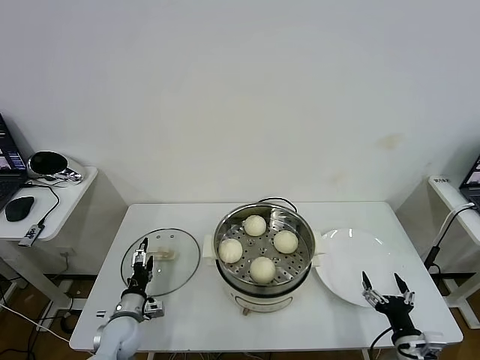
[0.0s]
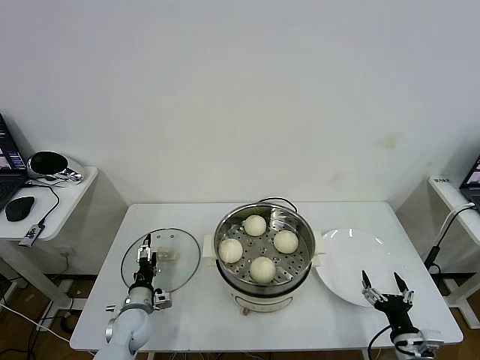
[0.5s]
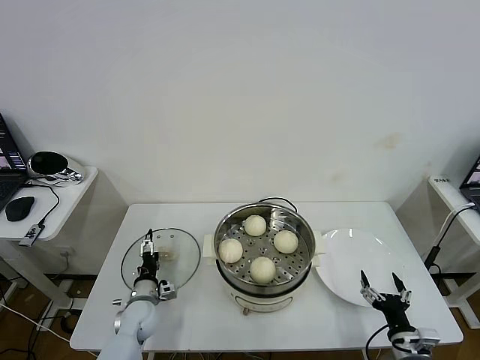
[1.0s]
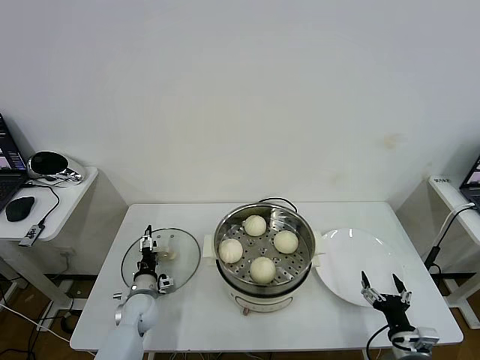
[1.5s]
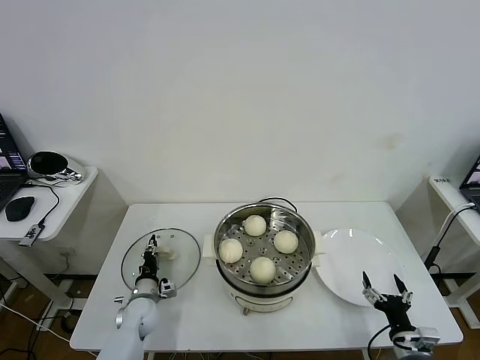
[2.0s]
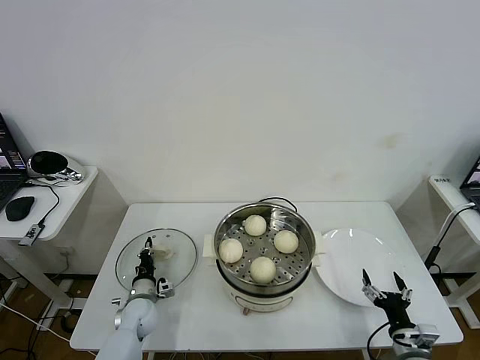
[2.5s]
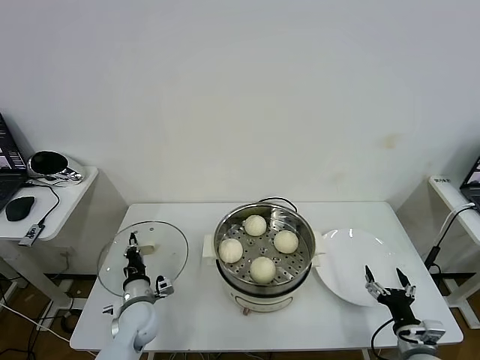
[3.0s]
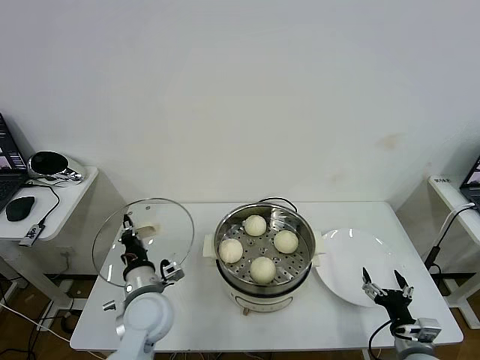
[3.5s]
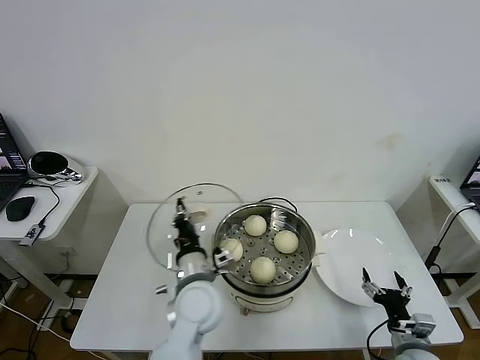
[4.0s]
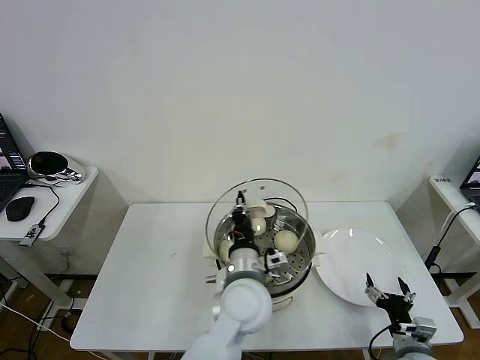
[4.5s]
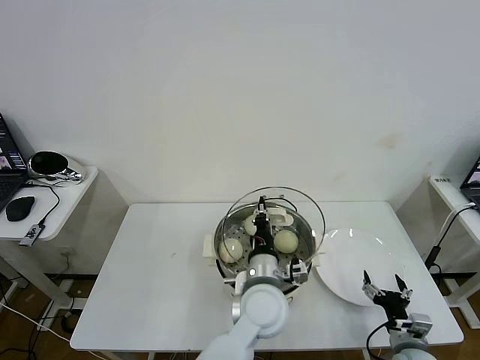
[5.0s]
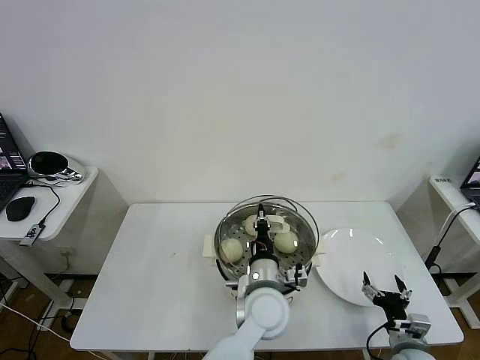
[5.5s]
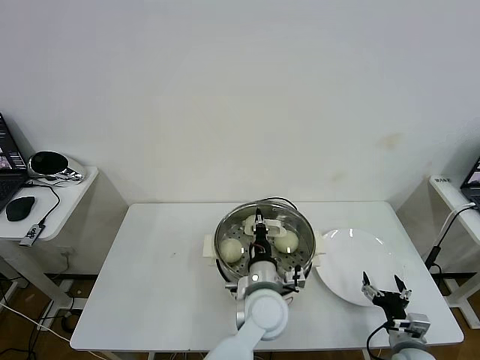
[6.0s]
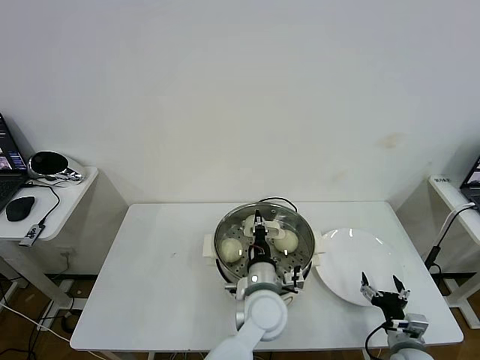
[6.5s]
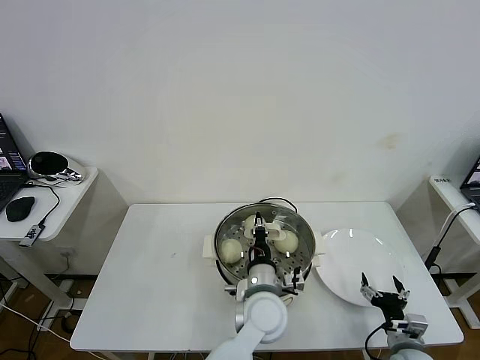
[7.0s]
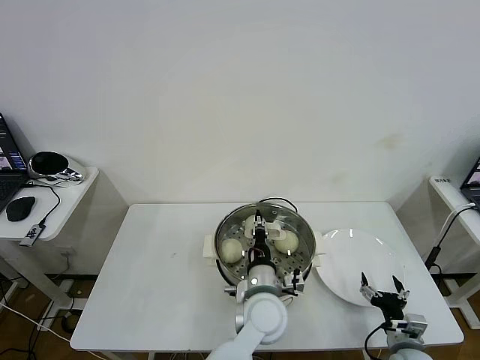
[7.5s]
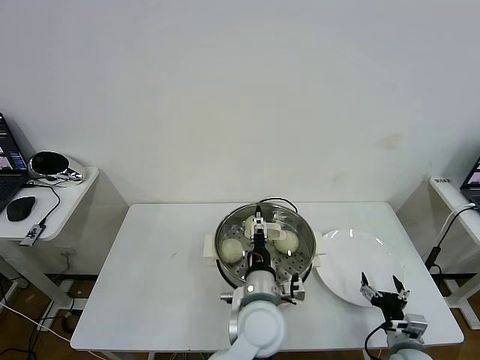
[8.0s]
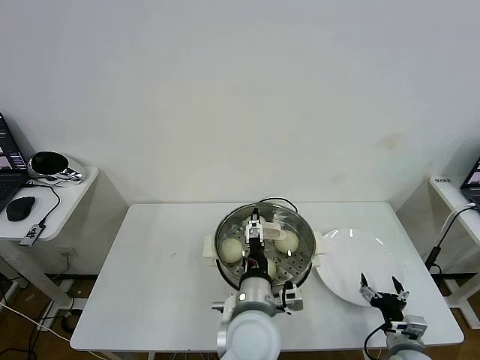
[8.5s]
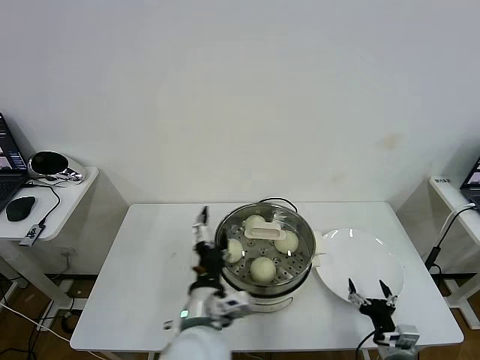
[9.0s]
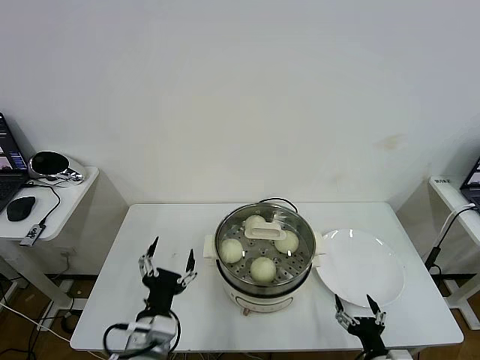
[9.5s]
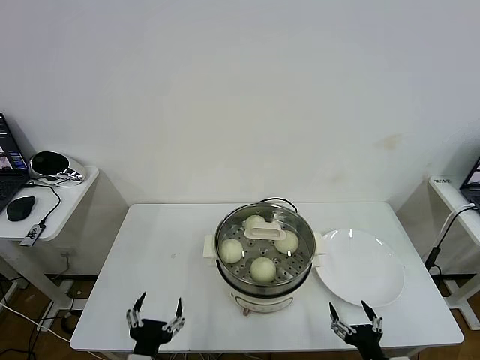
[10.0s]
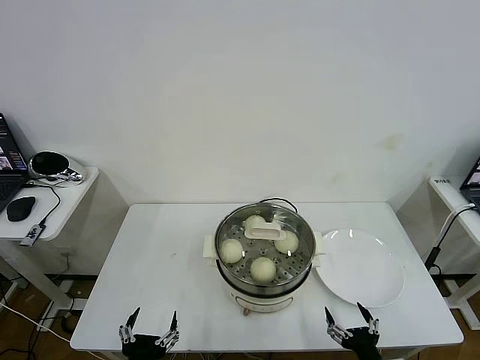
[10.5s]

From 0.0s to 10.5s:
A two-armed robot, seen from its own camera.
Task of the whole recording: take steamed baozi put them in steamer then cover it.
Step, from 0.0s to 2.0s: Grasp the pot lid with left gripper.
Step, from 2.5s to 7.5s: Place the pot lid on the steamer with left gripper.
From 0.0s to 2.0s: The left gripper travels forward by roughly 5 cm, and closes up.
From 2.0s to 4.0s: The left gripper is displaced upward and to the right by approximately 30 cm, and closes.
From 4.0s to 6.5s: The left gripper moves to the right, about 15 cm.
From 6.5s to 8.5s: The left gripper shifts roughly 5 cm backward, and opens up.
From 8.5s to 10.5s: The right gripper moves backward and to the left, approximately 10 cm. Meanwhile the left gripper moves to the left and backward, about 25 cm.

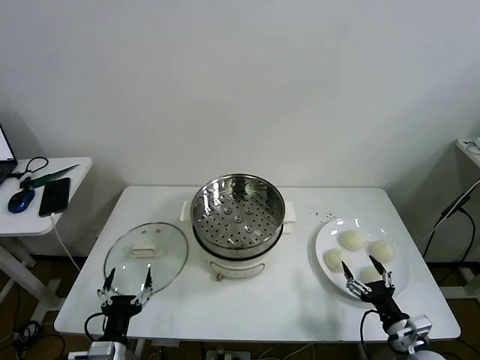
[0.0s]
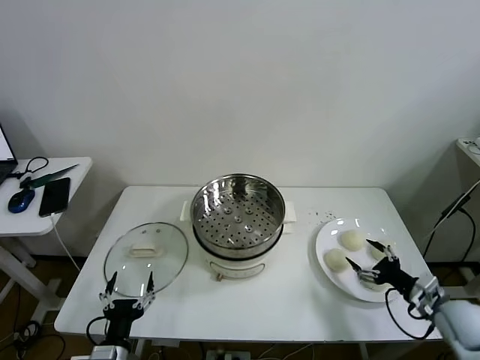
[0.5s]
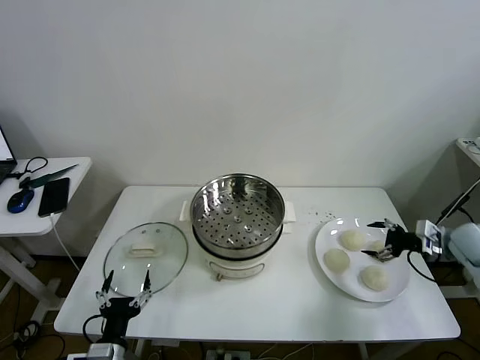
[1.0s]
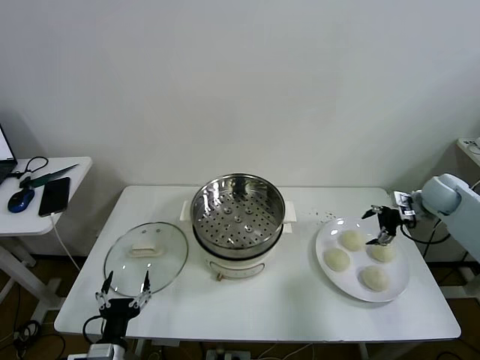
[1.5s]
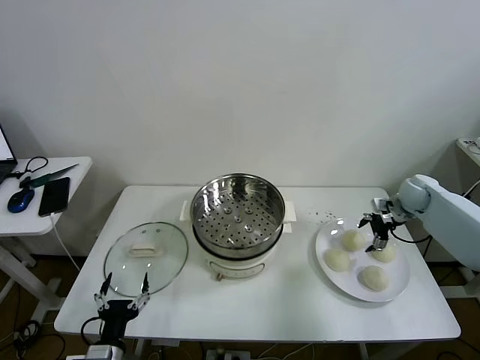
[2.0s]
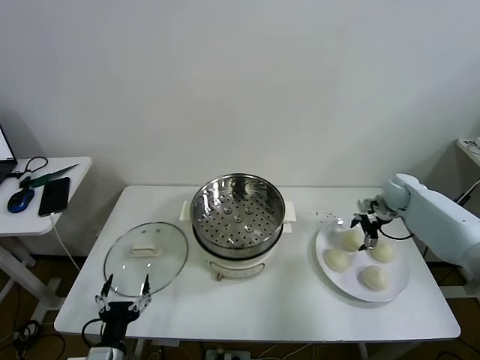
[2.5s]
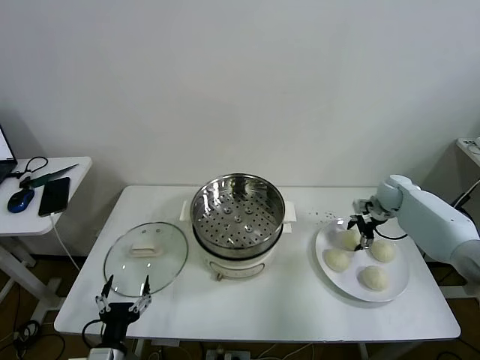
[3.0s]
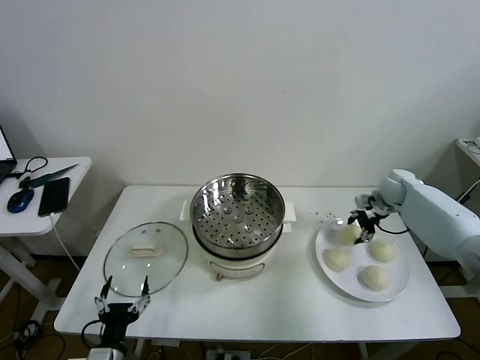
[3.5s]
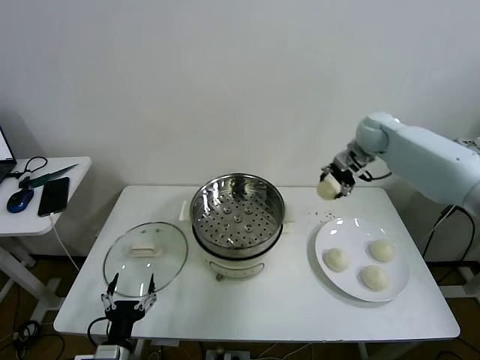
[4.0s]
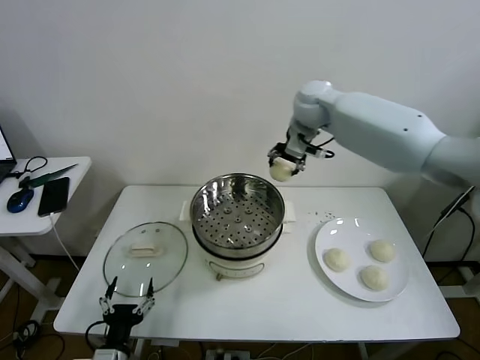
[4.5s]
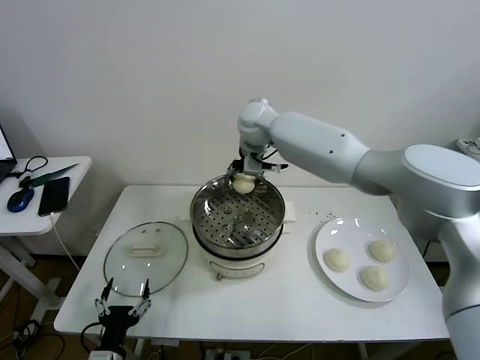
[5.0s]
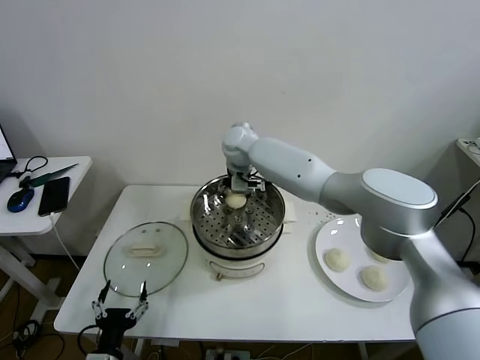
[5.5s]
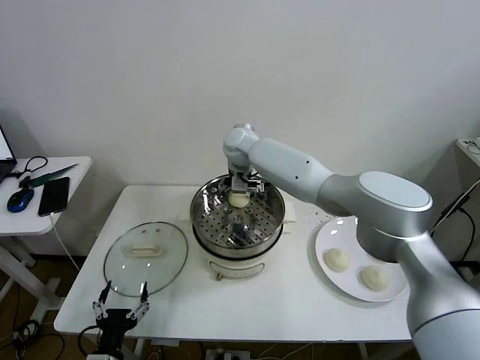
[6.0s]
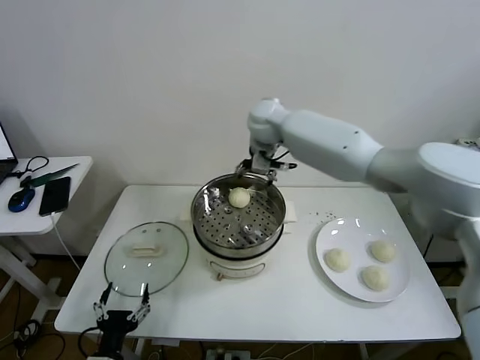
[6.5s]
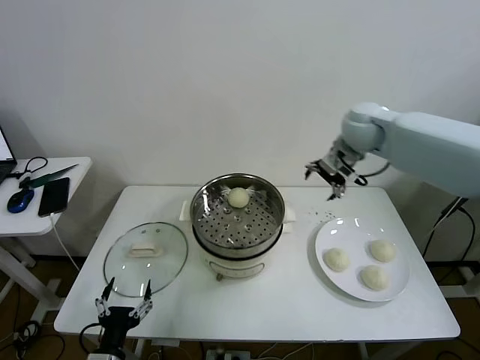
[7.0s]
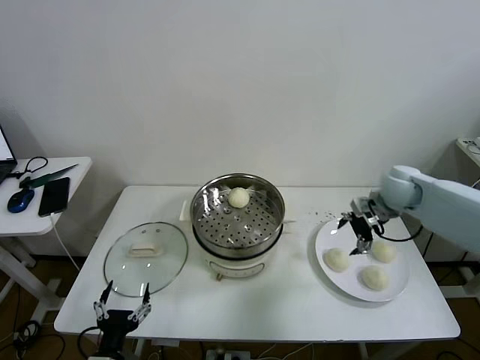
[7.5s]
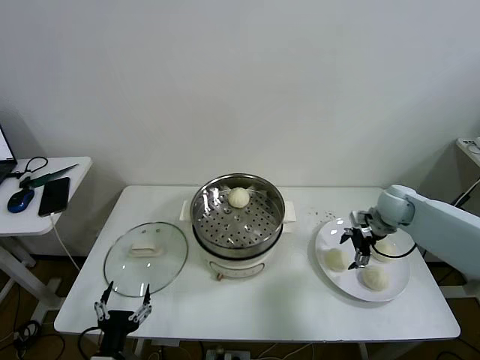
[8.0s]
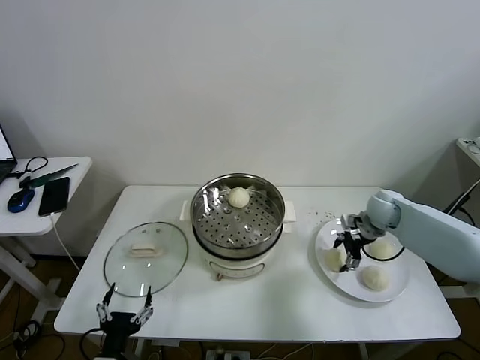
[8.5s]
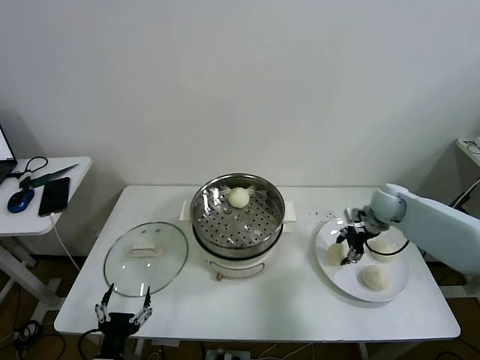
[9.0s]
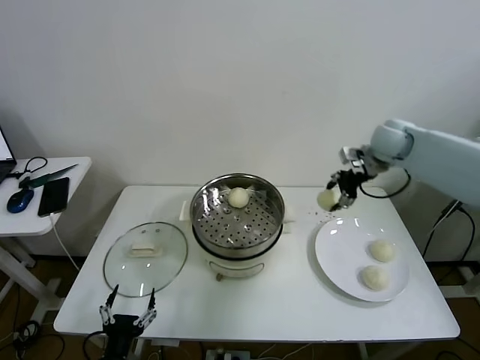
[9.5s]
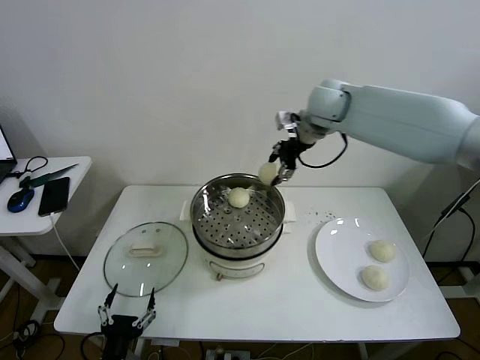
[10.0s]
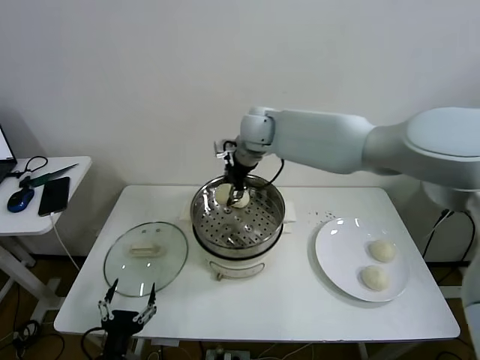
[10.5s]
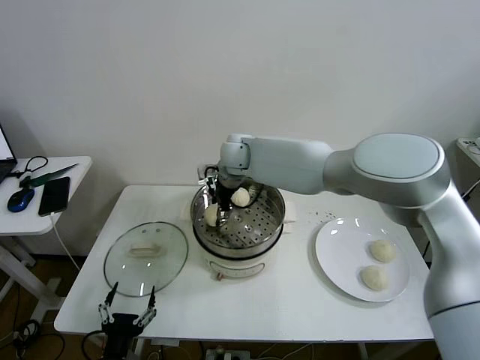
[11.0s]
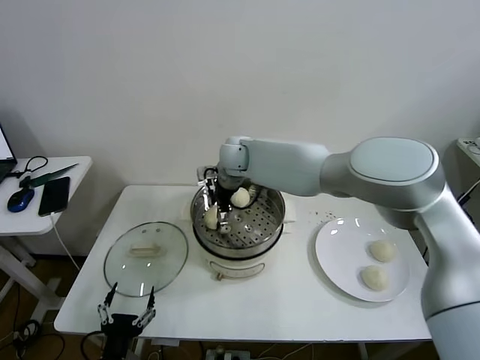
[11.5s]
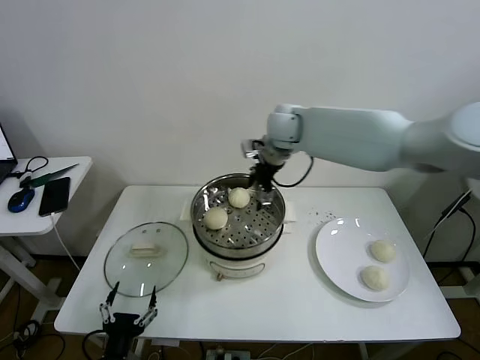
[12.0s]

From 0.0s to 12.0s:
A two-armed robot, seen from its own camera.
Task of the whole recording: take steamed baozi put them in steamer then cover it.
Step, from 0.0s to 3.0s: Grasp the baozi in the plate with right gripper.
Step, from 3.5s to 5.5s: Place the baozi on the steamer with right gripper.
Step, from 6.5s to 8.5s: Grasp the baozi in the plate with right gripper.
Step, from 9.0s to 11.5s: Place the baozi on the steamer with right gripper.
From 2.0s to 4.0s: The right gripper heads upward and to the left, covering roughly 25 cm, and closes its fingers.
From 4.0s to 6.0s: The right gripper heads to the left, covering roughly 30 cm, and opens its fingers.
From 6.0s to 8.0s: The right gripper shifts about 40 cm to the right.
From 8.0s to 10.0s: The right gripper is displaced upward and to the left by roughly 35 cm, and closes up.
From 10.0s to 12.0s: The right gripper reaches roughly 15 cm to the left, then returns, and opens its fingers.

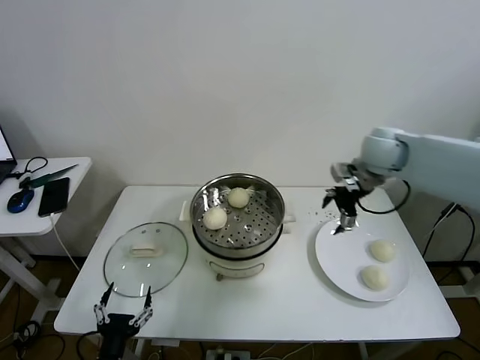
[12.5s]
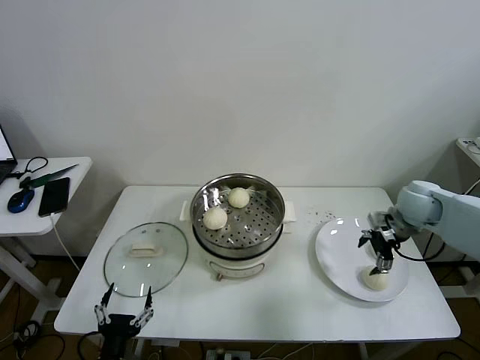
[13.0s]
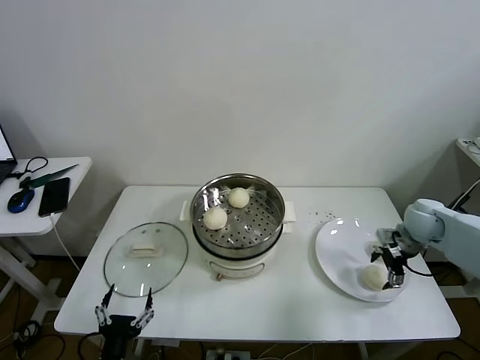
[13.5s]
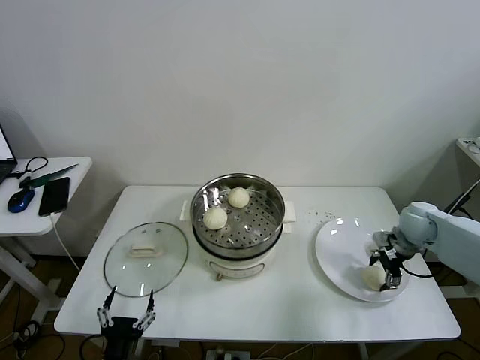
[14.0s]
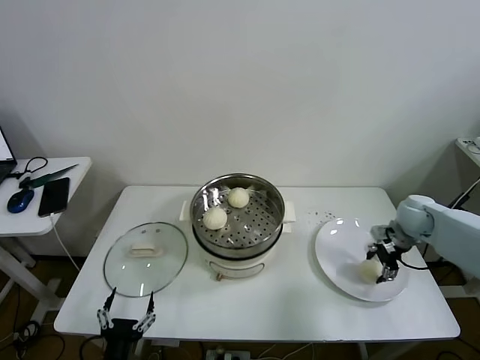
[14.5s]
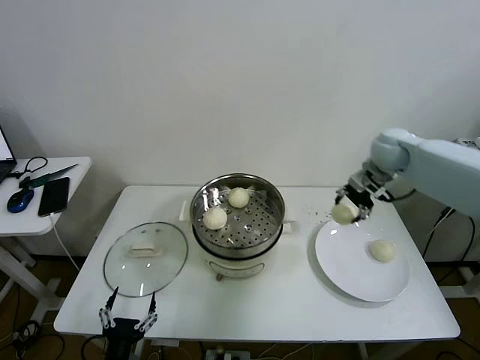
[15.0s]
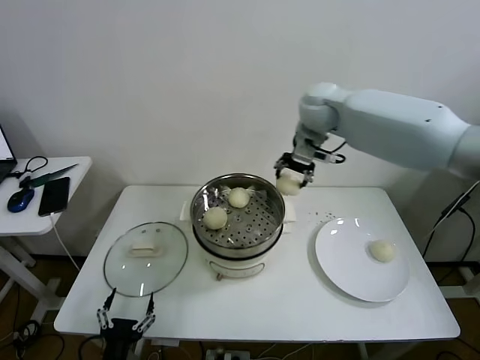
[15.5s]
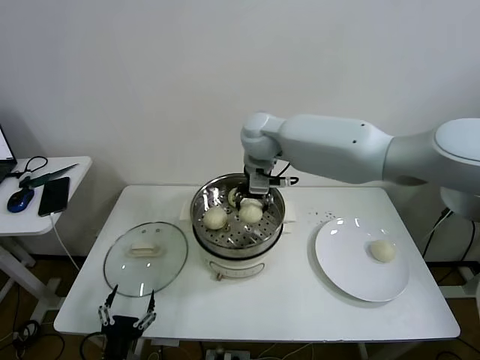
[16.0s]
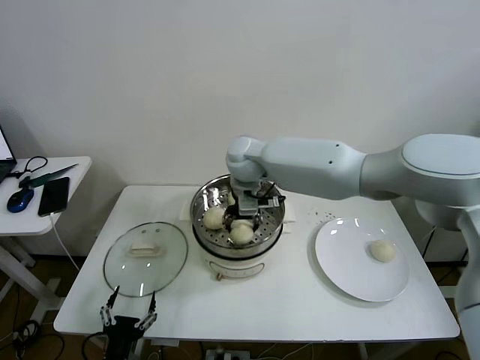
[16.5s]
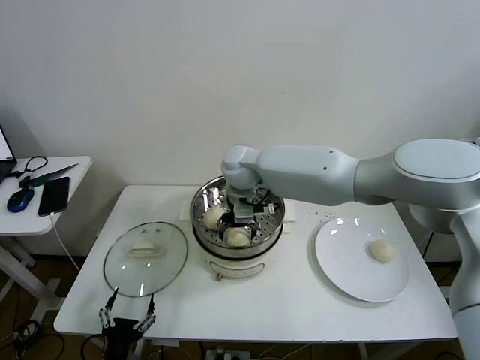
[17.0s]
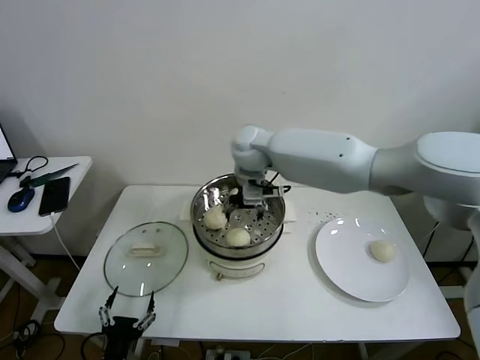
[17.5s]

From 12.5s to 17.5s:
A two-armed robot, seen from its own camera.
Task of the whole recording: take steamed baozi put them in steamer then cover it.
Step, from 12.5s to 14.0s: Grasp the baozi in the plate with right gripper.
Step, from 14.5s to 17.0s: Place the baozi on the steamer with right gripper.
From 12.5s to 15.0s: The right gripper goes downward and returns, approximately 15 cm each way, and closes up.
From 15.0s to 17.5s: The right gripper heads to the left, covering some 30 cm, and opens.
